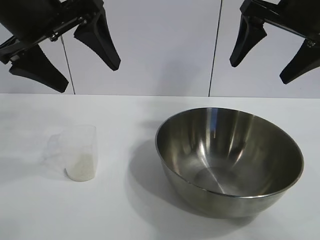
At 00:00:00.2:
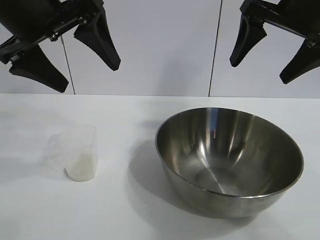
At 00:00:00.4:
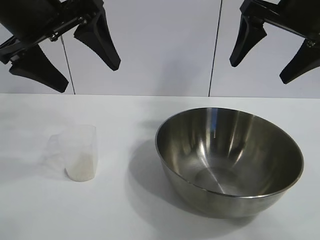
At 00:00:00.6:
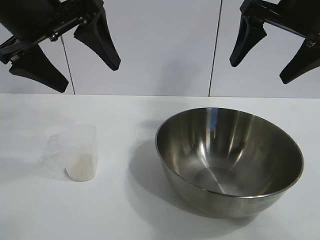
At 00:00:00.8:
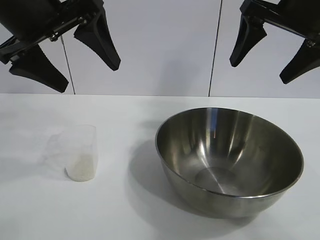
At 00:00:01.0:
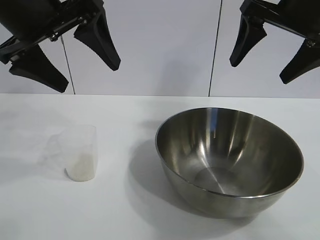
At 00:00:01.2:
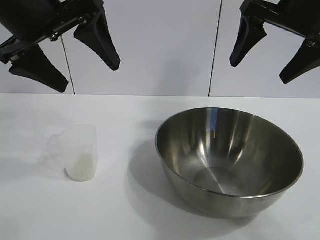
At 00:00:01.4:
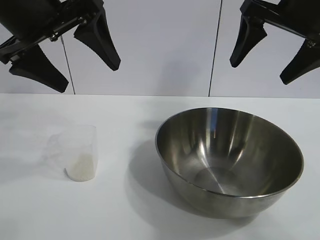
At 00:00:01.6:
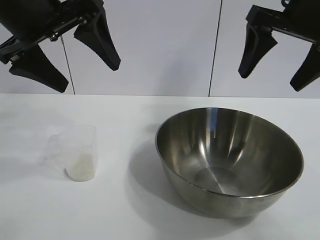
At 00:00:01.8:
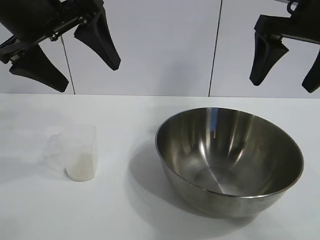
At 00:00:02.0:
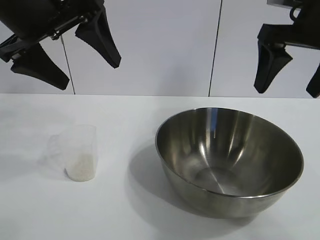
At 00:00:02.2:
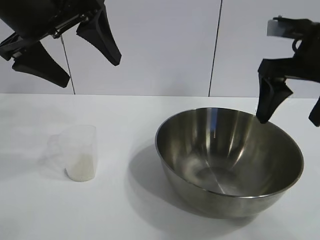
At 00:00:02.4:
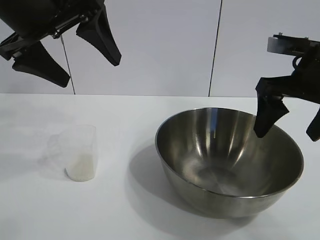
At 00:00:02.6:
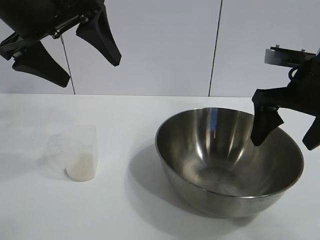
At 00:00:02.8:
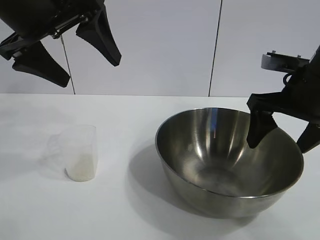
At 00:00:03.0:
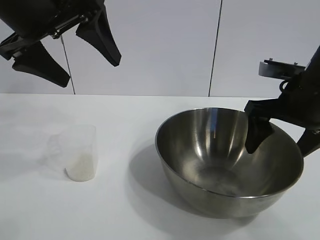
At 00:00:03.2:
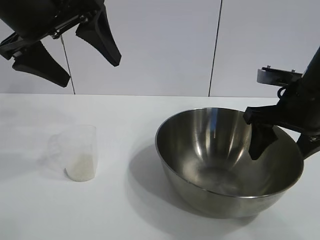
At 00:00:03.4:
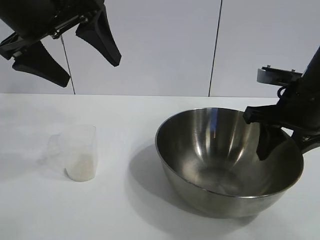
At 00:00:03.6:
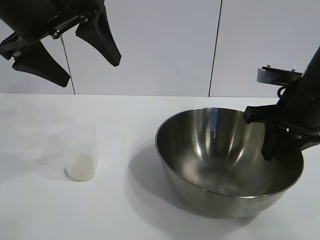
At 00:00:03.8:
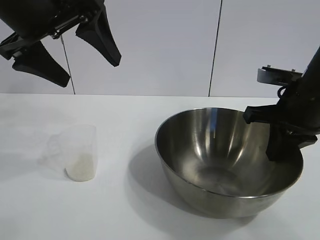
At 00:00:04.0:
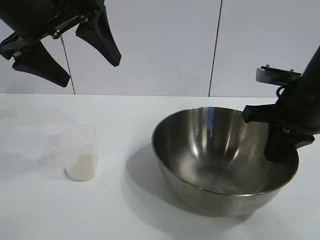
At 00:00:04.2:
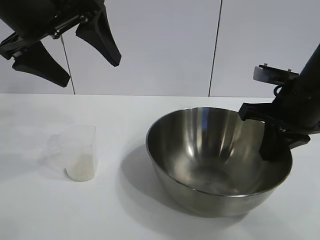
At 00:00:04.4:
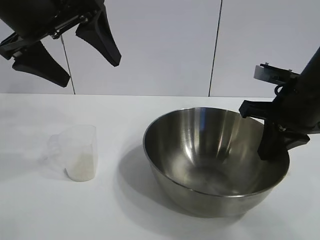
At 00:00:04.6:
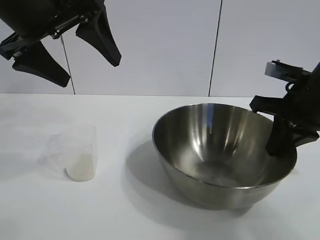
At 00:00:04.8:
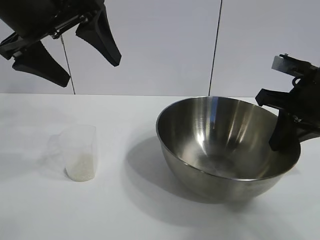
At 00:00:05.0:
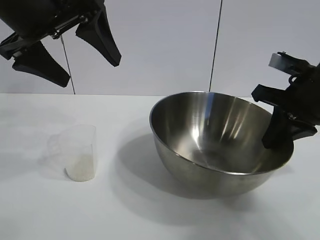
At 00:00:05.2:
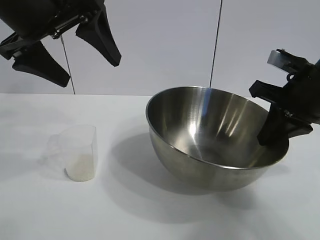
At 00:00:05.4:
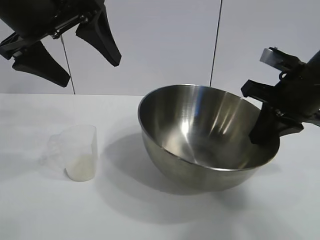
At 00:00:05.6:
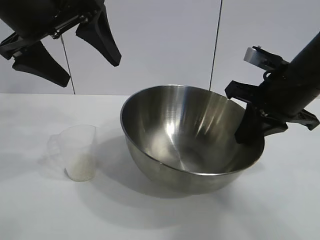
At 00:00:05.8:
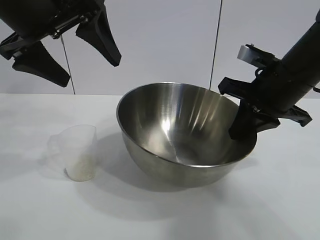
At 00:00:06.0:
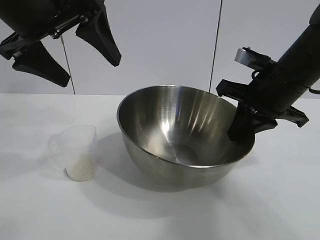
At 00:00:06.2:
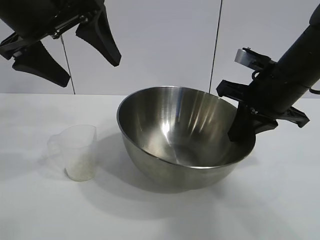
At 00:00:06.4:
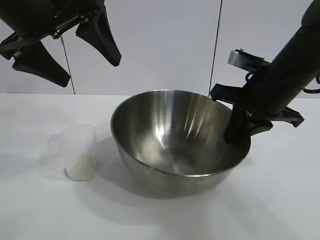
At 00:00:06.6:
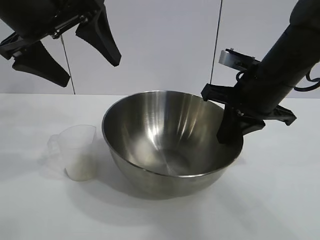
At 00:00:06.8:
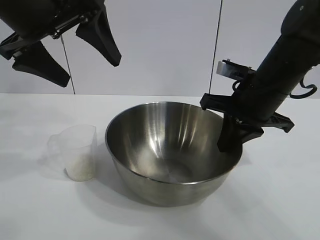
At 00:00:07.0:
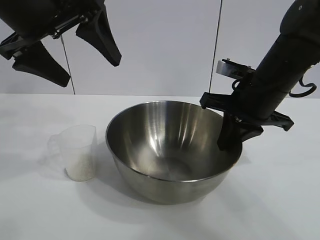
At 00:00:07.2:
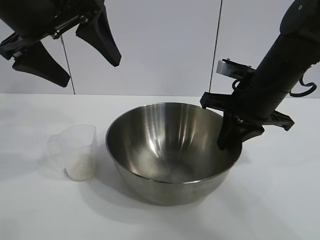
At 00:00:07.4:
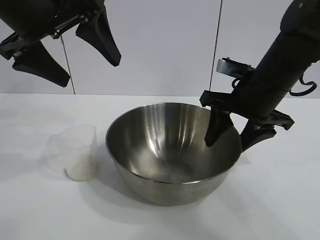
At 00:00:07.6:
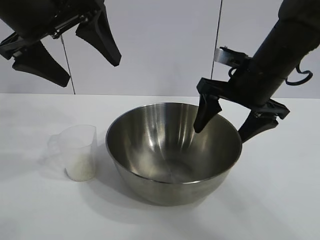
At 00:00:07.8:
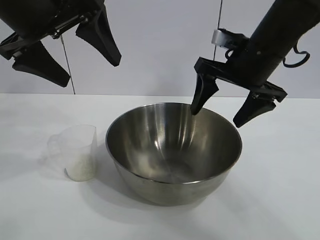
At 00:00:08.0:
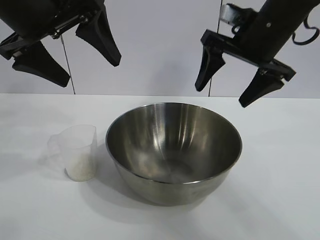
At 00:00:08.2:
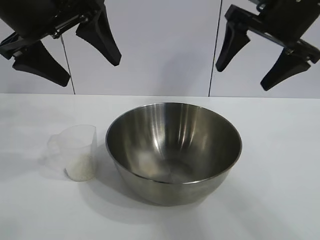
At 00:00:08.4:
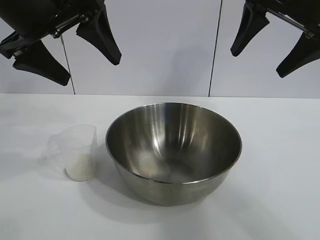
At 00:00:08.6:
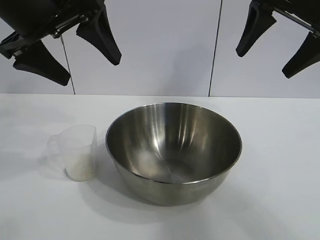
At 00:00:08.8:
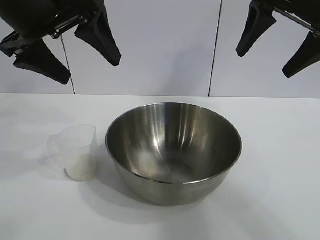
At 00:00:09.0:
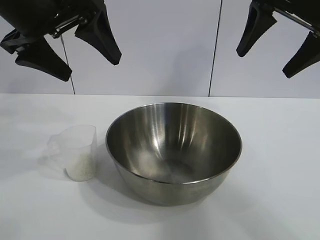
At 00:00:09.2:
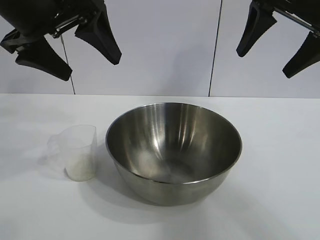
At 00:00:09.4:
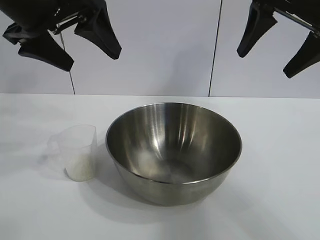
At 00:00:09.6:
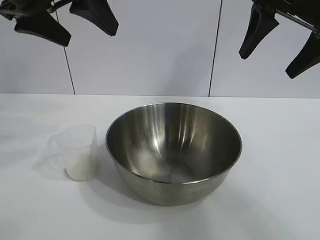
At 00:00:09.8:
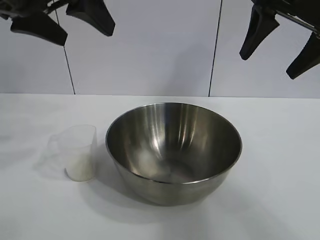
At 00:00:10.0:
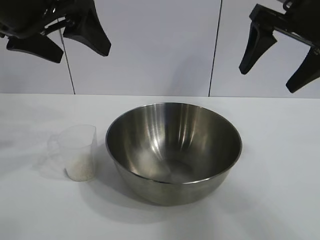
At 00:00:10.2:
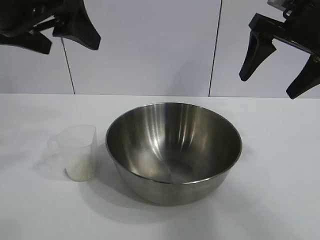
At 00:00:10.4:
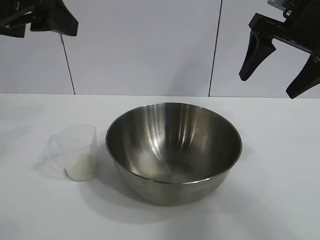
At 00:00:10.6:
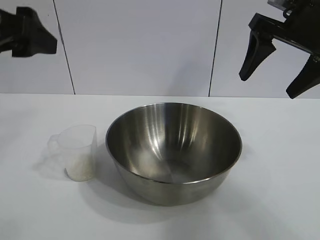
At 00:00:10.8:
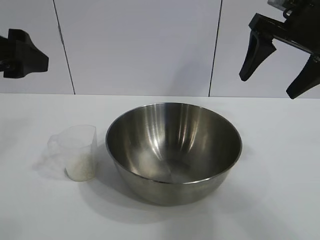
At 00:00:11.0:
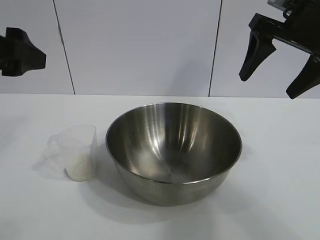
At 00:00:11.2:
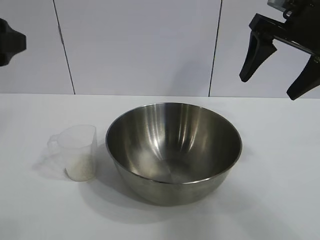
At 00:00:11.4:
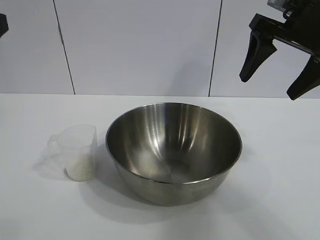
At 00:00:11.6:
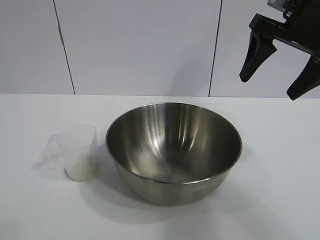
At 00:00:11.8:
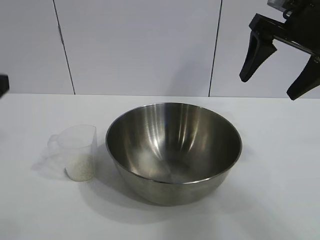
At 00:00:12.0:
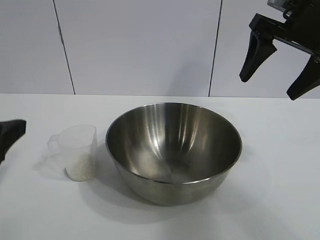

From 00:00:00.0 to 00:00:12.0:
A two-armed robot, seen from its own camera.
Task of the whole recording: the right gripper grasp the rice container and place it in the center of the table, the left gripper grasp the rice scoop and pour the rice into the rice container.
Step, from 00:00:01.2 to 00:00:07.8: Move the bowl in the center of view with right gripper.

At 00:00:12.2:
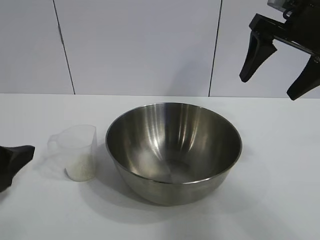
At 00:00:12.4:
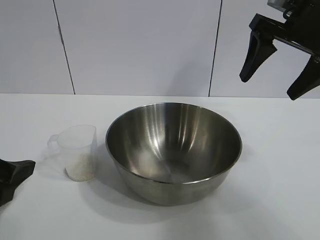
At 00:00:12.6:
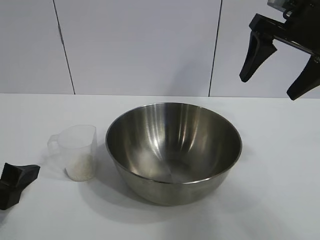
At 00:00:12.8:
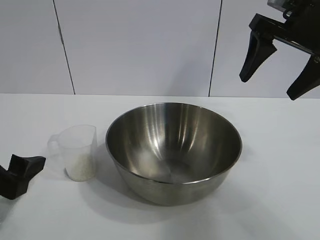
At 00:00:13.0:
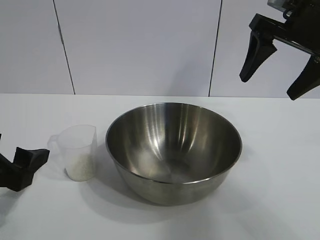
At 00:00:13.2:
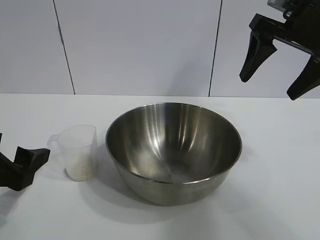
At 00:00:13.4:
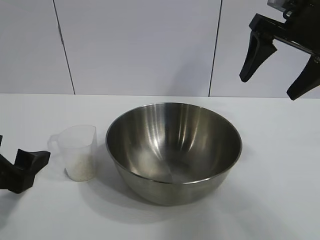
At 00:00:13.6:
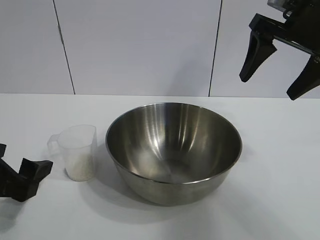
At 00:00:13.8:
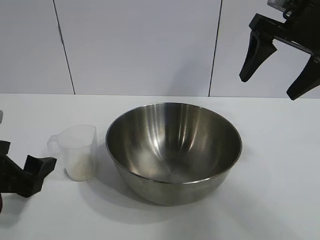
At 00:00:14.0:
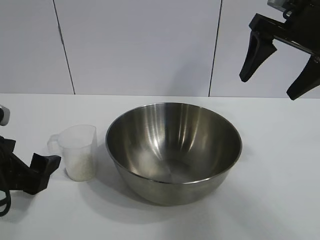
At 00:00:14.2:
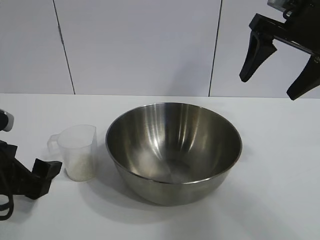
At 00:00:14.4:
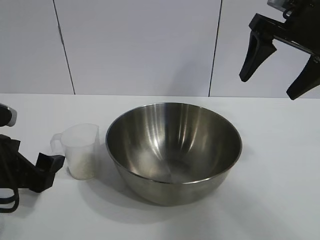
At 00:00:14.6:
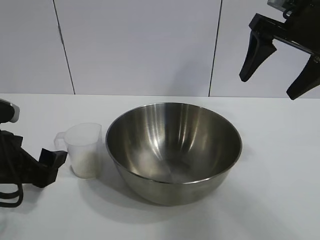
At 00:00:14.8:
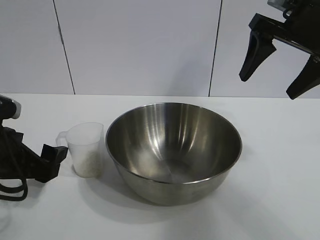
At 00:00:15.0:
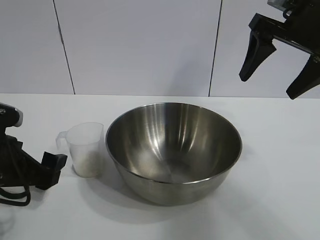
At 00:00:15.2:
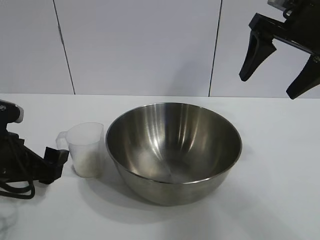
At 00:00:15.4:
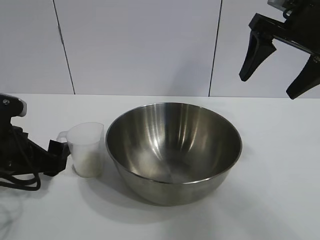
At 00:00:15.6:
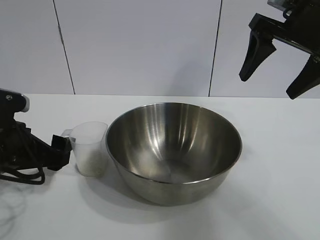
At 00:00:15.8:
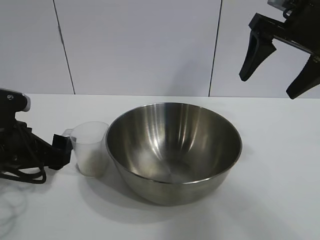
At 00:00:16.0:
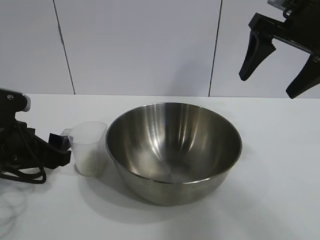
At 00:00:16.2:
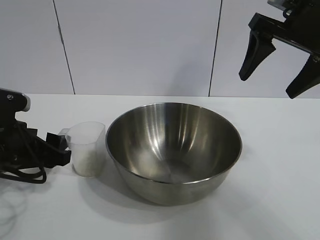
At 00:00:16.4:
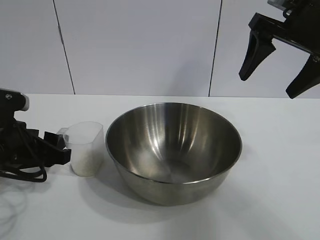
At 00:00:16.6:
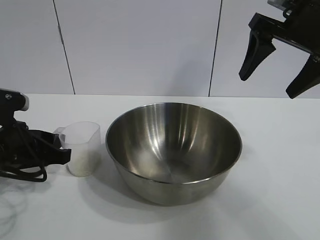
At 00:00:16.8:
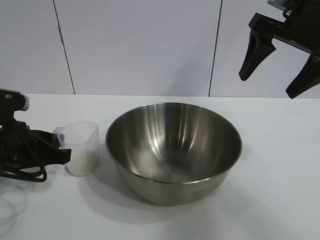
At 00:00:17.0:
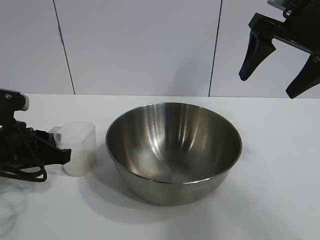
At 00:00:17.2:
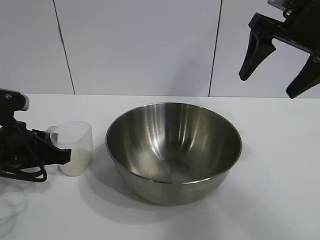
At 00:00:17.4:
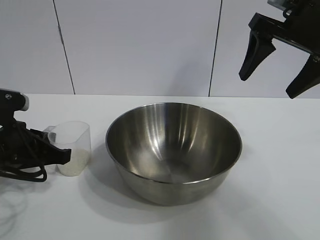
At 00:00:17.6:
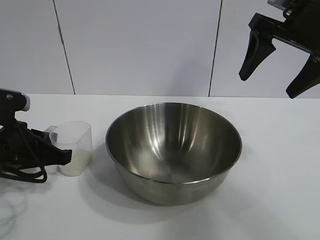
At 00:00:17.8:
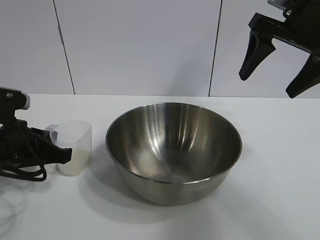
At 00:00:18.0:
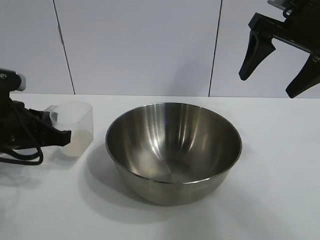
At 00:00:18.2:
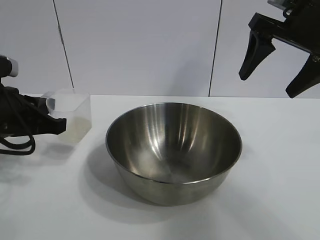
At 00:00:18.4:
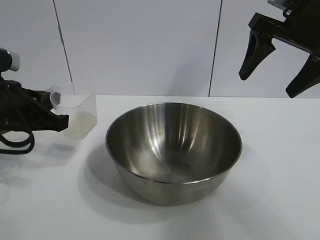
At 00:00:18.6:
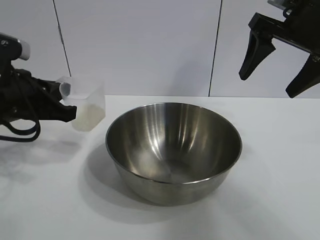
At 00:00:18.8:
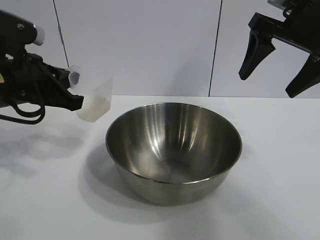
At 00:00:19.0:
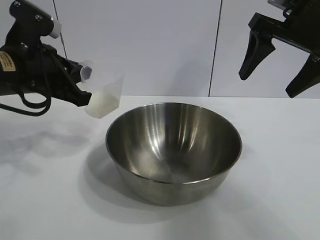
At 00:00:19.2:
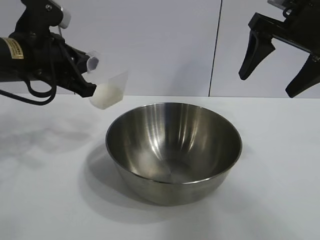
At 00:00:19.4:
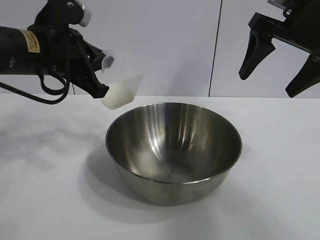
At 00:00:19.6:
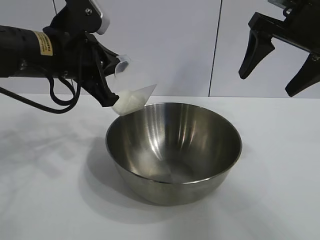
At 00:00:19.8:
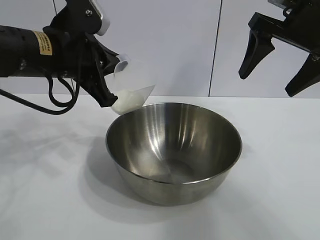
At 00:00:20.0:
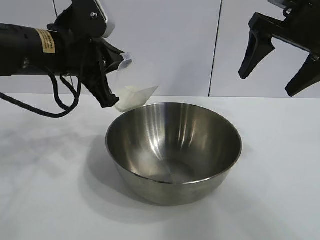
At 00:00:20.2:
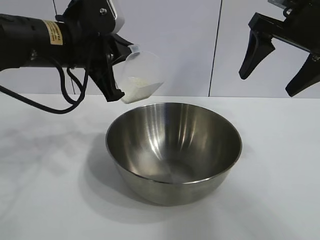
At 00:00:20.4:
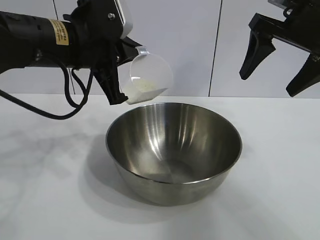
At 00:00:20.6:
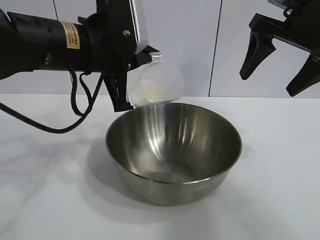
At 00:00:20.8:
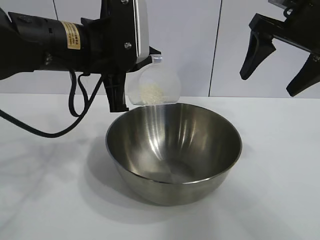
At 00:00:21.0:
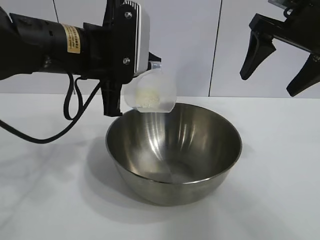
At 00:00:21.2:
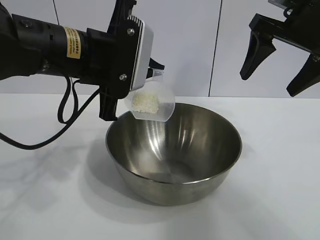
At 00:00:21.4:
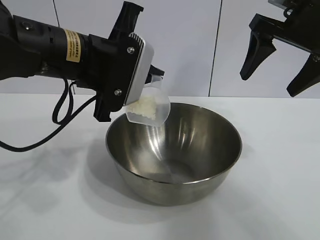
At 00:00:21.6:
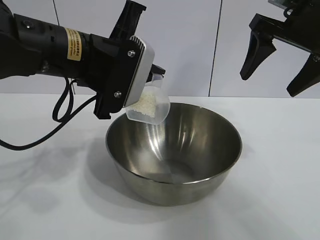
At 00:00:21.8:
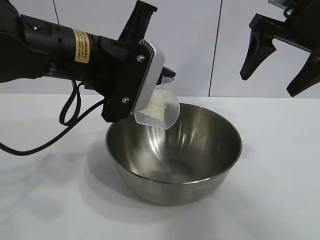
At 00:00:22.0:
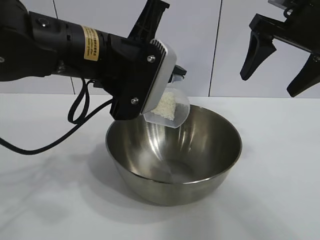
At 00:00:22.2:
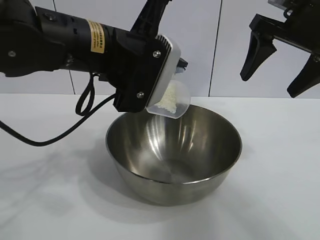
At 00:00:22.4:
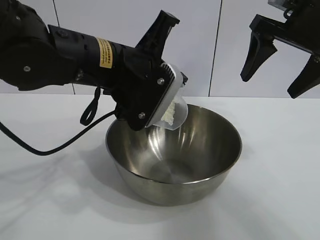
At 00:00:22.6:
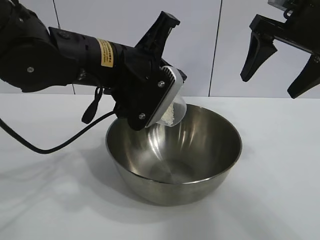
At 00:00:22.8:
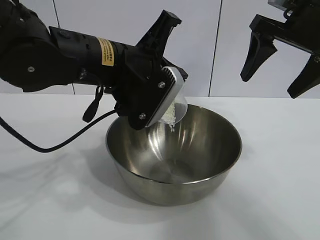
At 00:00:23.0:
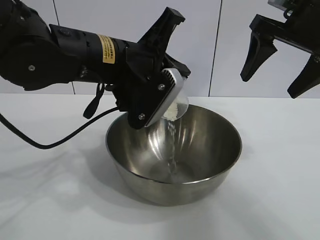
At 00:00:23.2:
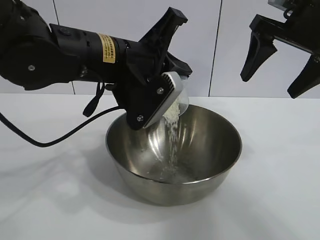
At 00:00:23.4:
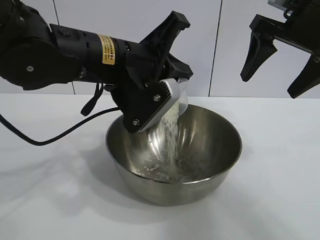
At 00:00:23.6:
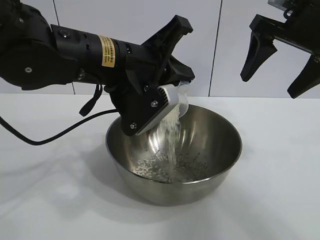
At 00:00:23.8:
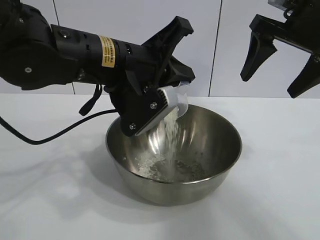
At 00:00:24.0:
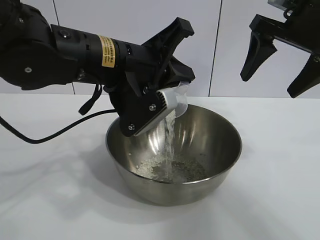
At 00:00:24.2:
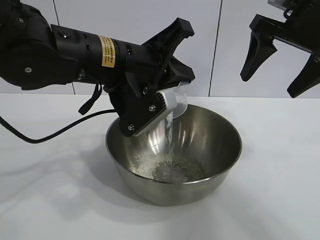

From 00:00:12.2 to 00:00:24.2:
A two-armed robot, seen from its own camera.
Task of the whole recording: the right gripper grasp the rice container and place it in the center of the table, the left gripper grasp the rice scoop and pour the rice into the rice container.
Step, from 00:00:12.2 to 00:00:17.4: Grasp the cup with rice in it with left gripper.
